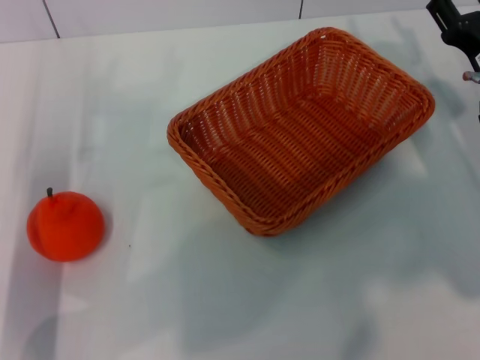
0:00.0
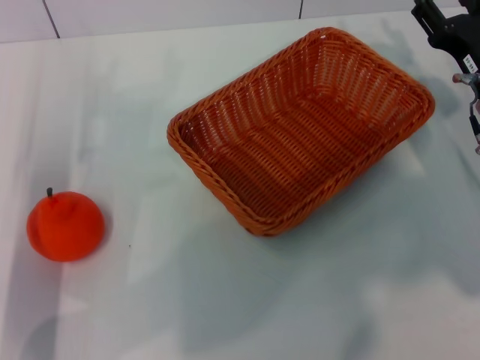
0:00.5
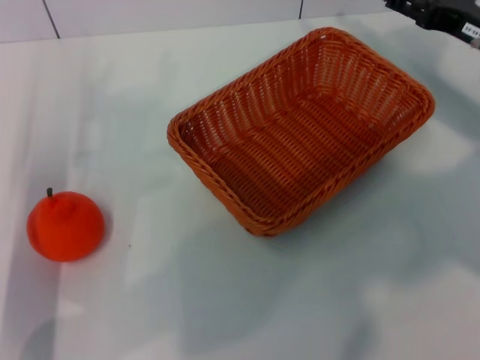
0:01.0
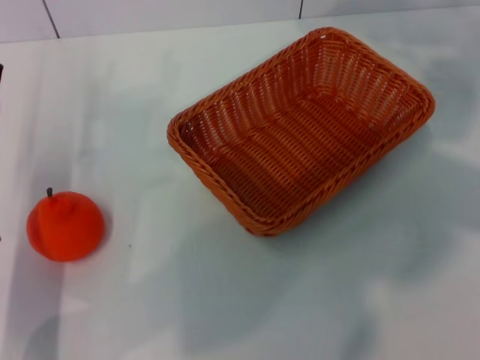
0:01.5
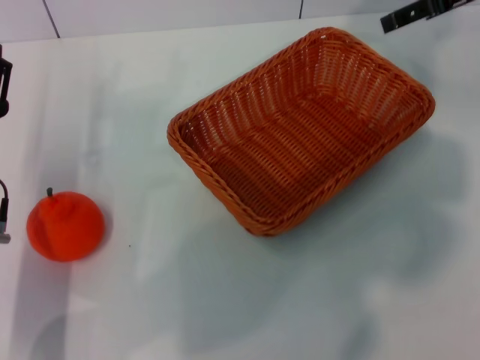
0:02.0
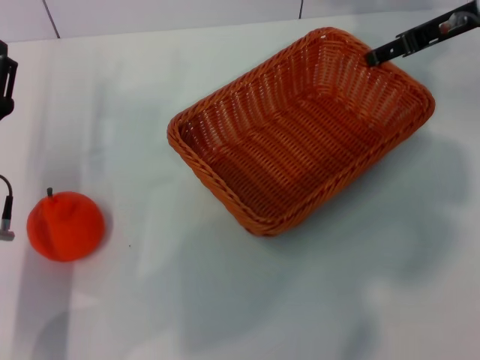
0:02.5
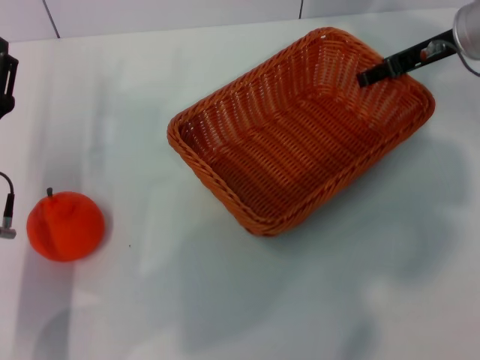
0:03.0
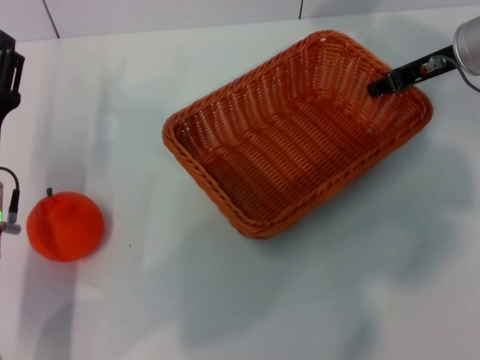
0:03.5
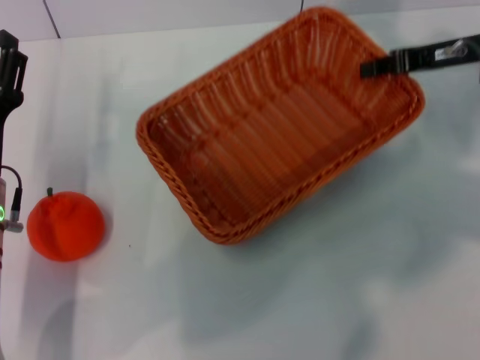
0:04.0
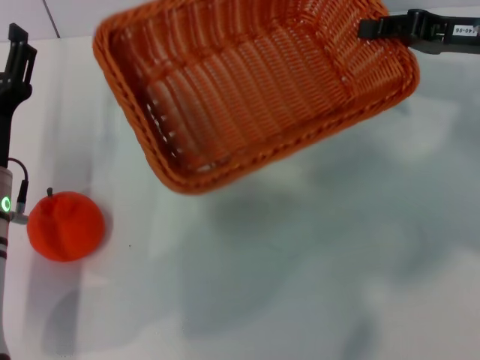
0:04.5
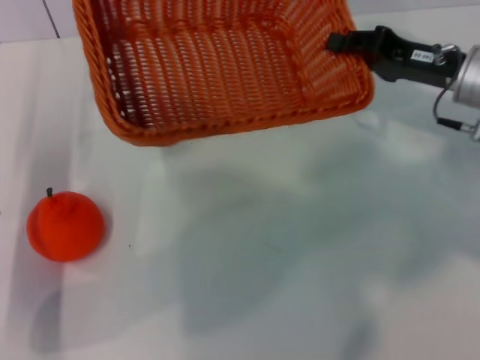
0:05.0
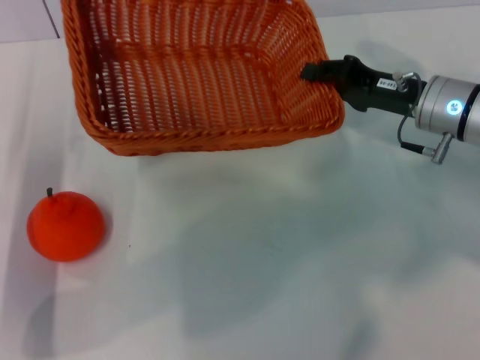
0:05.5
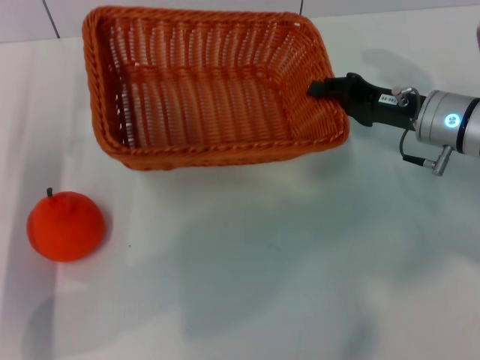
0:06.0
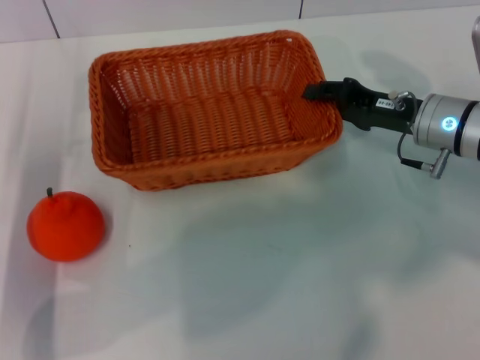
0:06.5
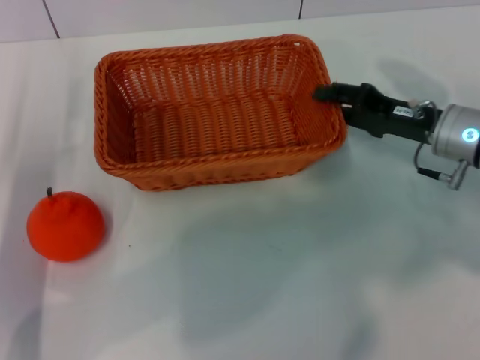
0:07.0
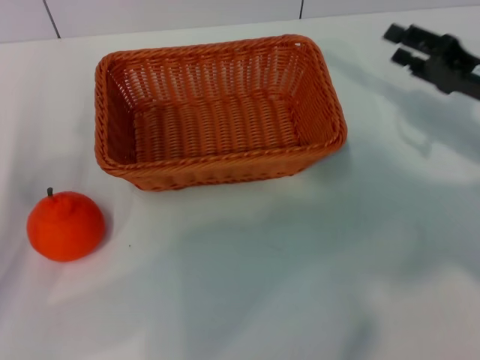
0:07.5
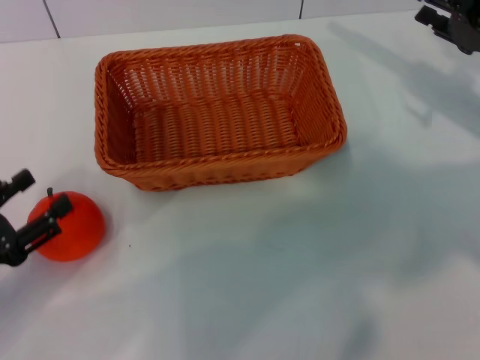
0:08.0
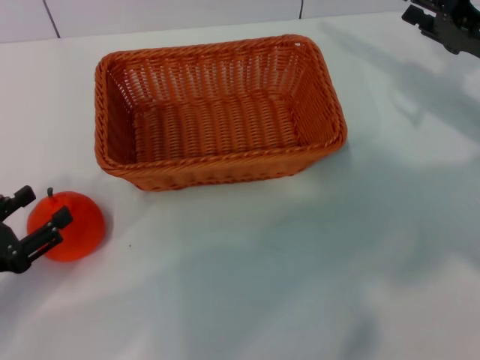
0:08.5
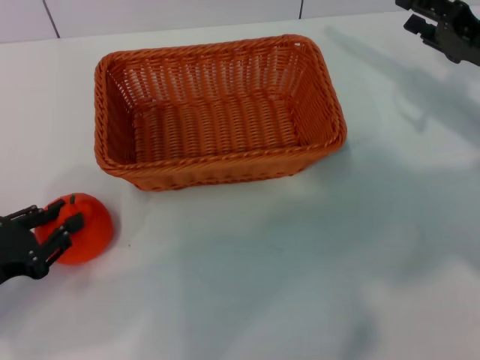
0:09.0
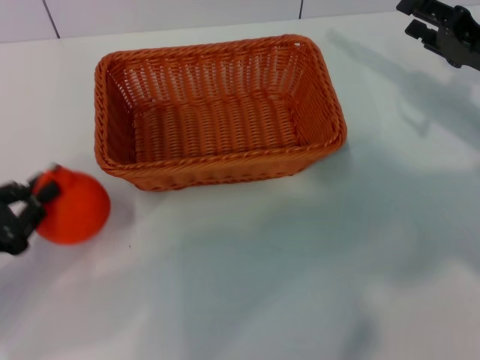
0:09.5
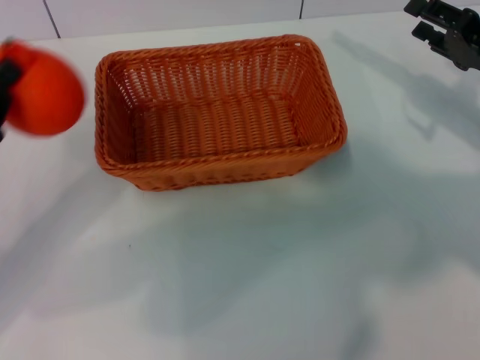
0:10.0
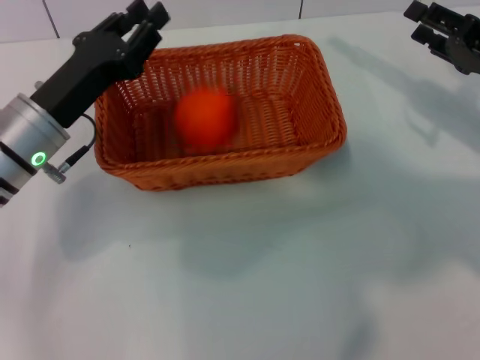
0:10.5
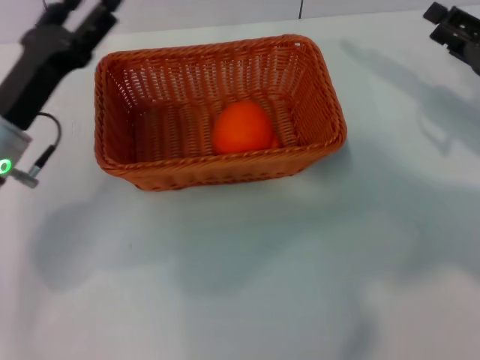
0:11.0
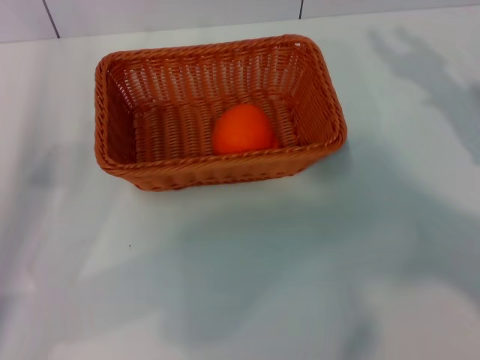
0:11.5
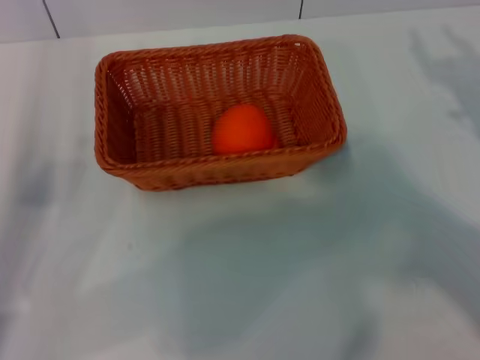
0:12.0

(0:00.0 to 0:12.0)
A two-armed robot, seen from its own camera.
Task of the whole recording: the right gripper pick up the yellow basket and place it horizontally in the middle of the table, the left gripper pick up the orange and place it into the yellow basket.
Step, 0:00.0 - 0:03.5: Pick up the light basket with the right gripper.
Step, 0:04.0 - 0:07.0: Place the light basket in the center of view with the right gripper.
Step, 0:07.5 - 0:09.0: Pick up the orange with the left gripper.
Step, 0:10.0 - 0:10.5: Place the orange into the light basket with the left gripper.
0:00.0 - 0:02.0: The right gripper heads upward and forward, covering approximately 20 cm.
0:02.0 - 0:04.0: The right gripper moves downward, roughly 10 cm, and closes up.
0:04.0 - 0:06.0: The right gripper goes approximately 10 cm downward.
0:06.0 - 0:08.0: The right gripper heads to the right, covering some 10 cm, and opens. Meanwhile the left gripper travels backward and to the left by some 10 cm.
0:08.0 - 0:10.0: The left gripper goes roughly 5 cm forward, and closes.
0:10.0 - 0:12.0: The left gripper moves roughly 10 cm to the right and comes back, and opens its fingers. The right gripper is displaced backward by some 10 cm.

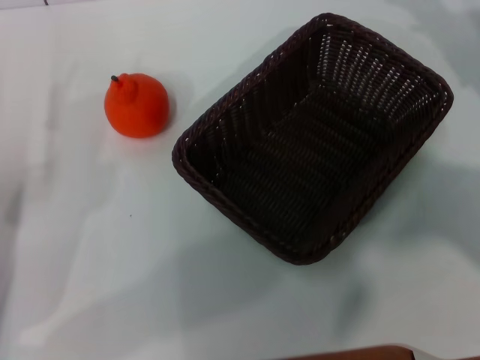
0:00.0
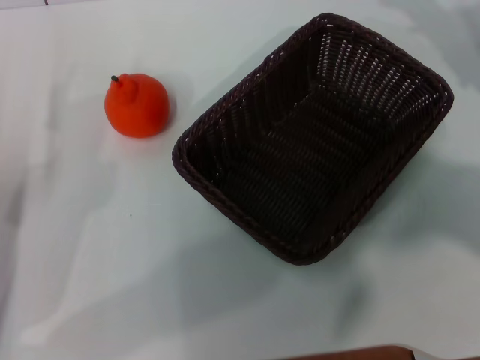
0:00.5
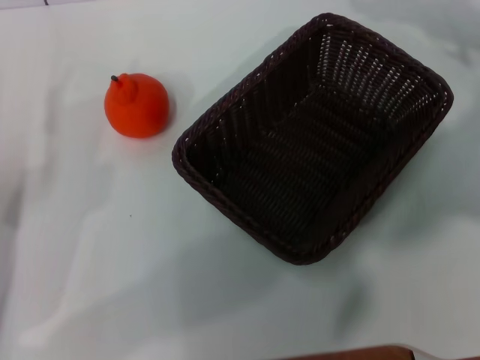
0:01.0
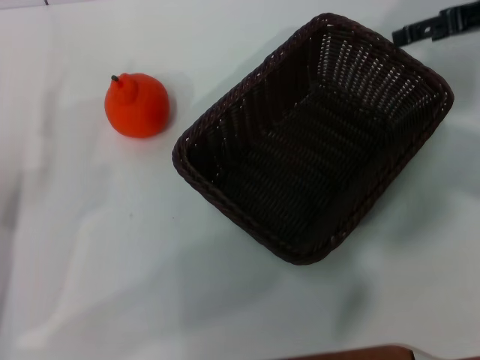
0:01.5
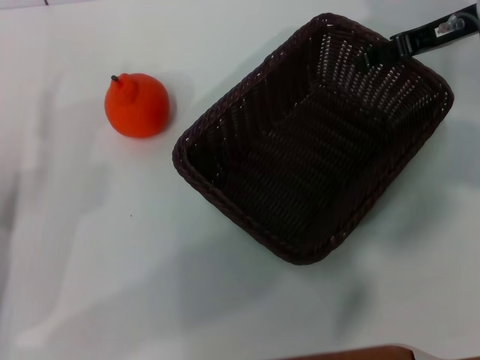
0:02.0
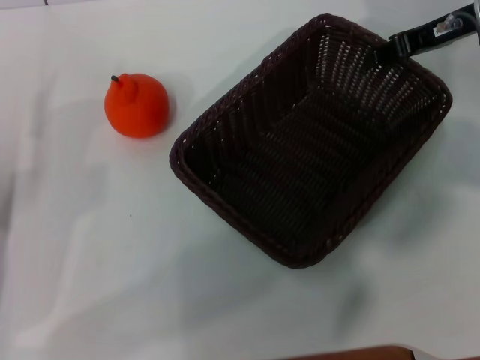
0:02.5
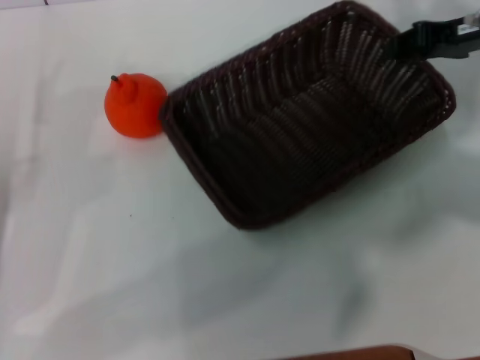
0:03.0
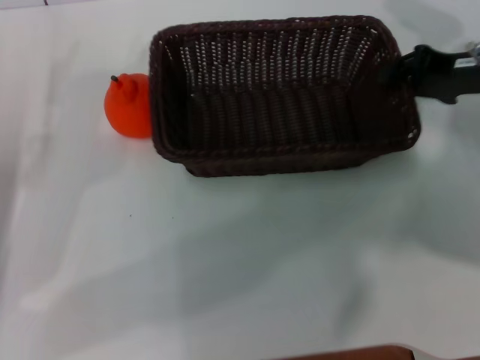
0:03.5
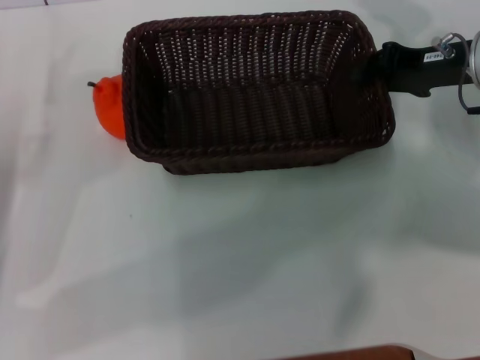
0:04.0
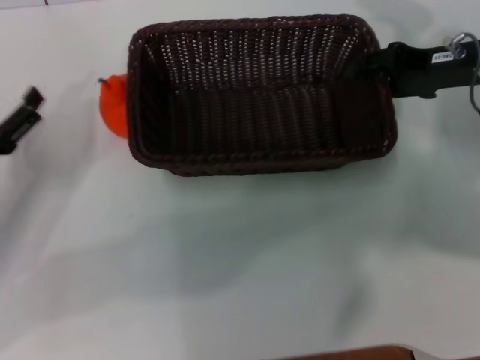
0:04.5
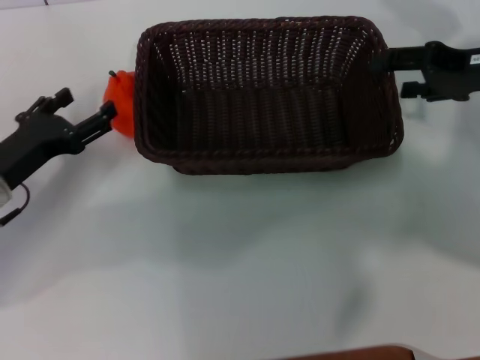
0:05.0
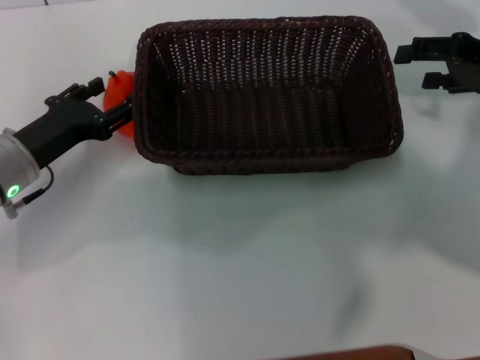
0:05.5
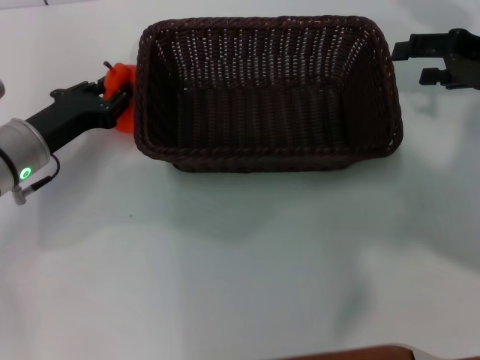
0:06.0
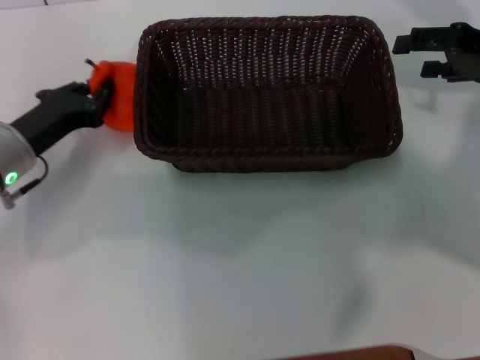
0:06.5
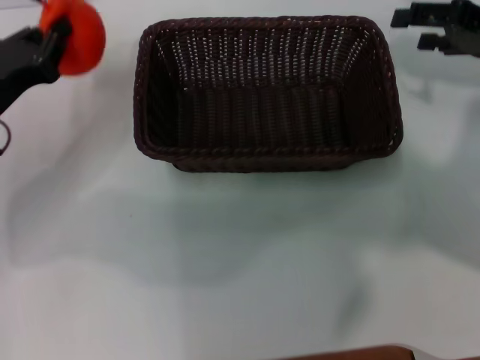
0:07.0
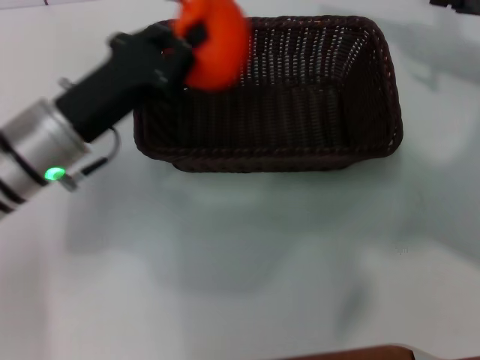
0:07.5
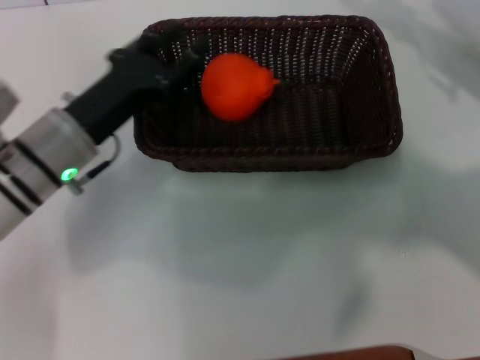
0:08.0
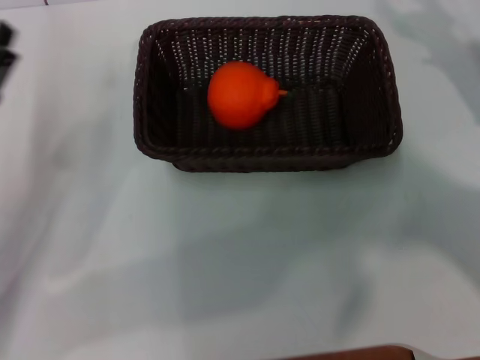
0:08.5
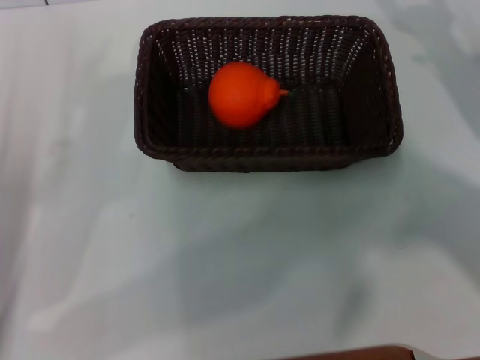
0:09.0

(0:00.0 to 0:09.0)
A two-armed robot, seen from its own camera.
Task of the whole recording: the right gripper pick up the black basket and place it horizontally in the middle of the table, the left gripper pick up the orange and place it into the black basket.
Step, 0:00.0 - 0:02.5: Pick up the dark basket with the right gripper.
Step, 0:03.5 - 0:05.0: Place the dark basket in the center of view with the right gripper.
Step, 0:05.5 - 0:06.5: Pick up the orange with the left gripper.
Step, 0:07.0 - 0:08.0: Place the orange into the dark basket with the left gripper.
0:00.0 - 0:02.0: The right gripper shifts some 10 cm to the left and forward, and opens its fingers.
0:02.0 - 0:04.5: The right gripper goes roughly 5 cm backward, and closes its fingers.
0:04.5 - 0:07.0: The right gripper shifts by approximately 5 cm, and opens. Meanwhile the left gripper goes roughly 5 cm forward, and closes.
0:07.0 - 0:09.0: The right gripper goes approximately 10 cm downward. The left gripper travels backward by some 10 cm, travels to the right and back again, roughly 10 cm each way, and opens its fingers.

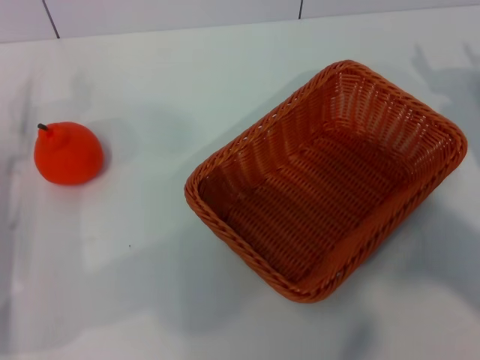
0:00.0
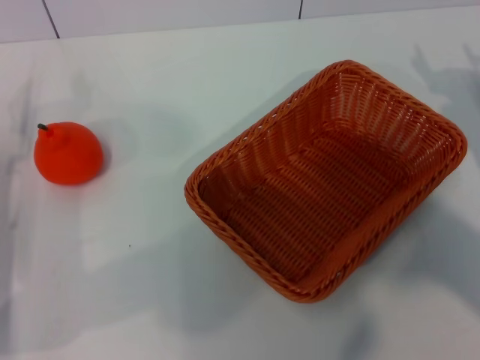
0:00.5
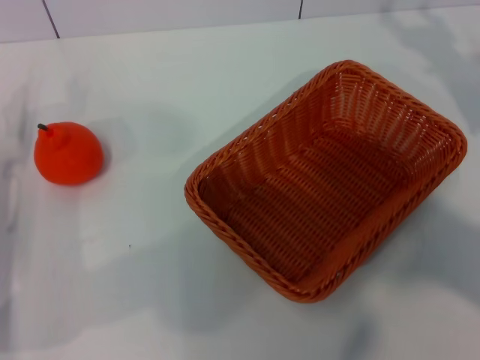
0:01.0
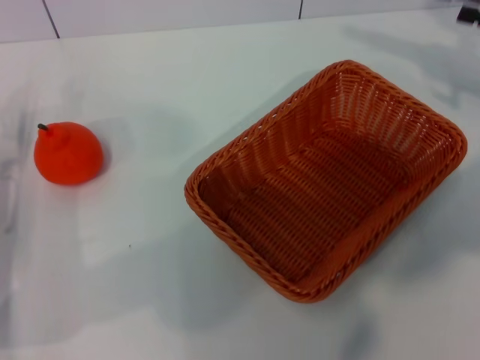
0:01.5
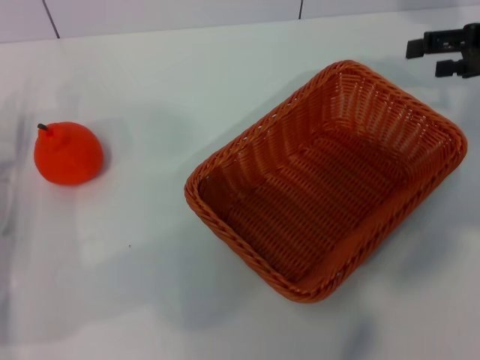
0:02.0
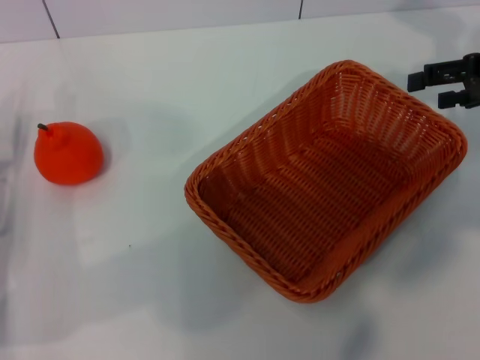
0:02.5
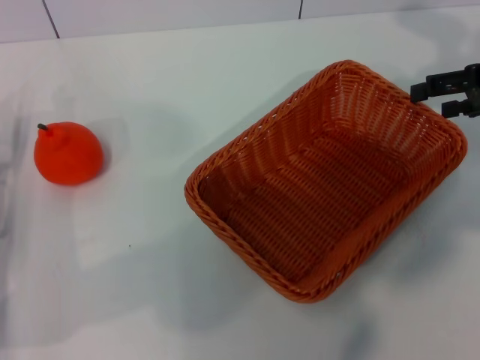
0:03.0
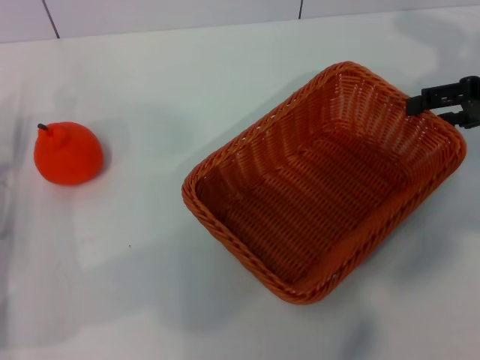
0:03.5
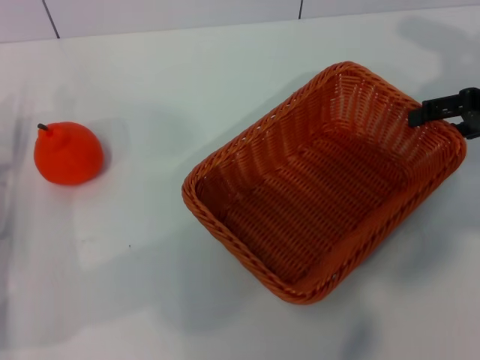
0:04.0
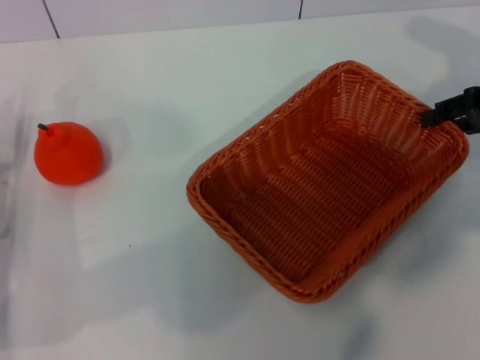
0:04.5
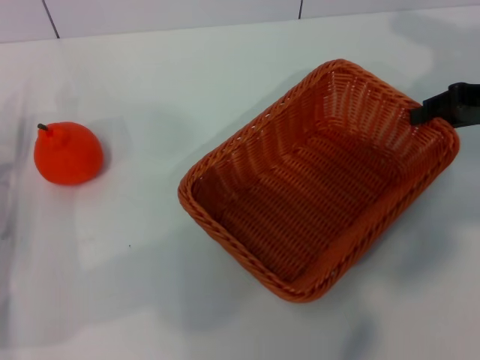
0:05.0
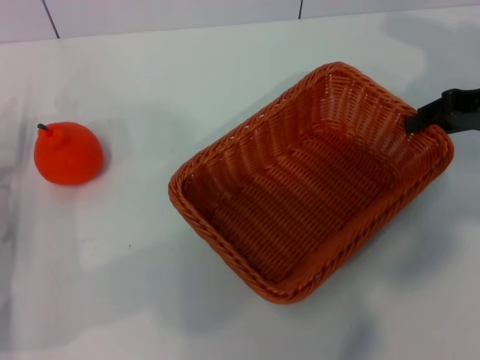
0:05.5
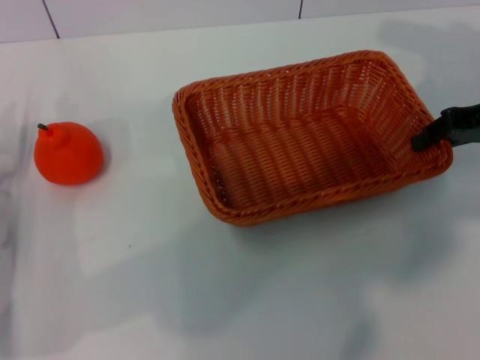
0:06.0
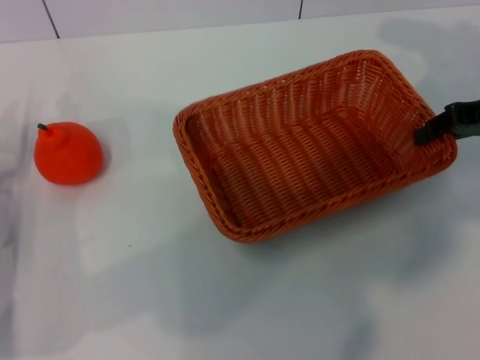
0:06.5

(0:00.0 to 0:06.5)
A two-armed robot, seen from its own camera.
Task of the whole recording: the right gripper pick up the yellow basket and place it horizontally in the middle of the table, the left gripper pick up the orange and place it into the yellow basket.
0:00.0 - 0:02.0: The right gripper is displaced upward and forward by some 15 cm.
0:02.0 - 0:04.5: The right gripper closes.
0:04.5 - 0:06.5: The right gripper closes its fingers.
